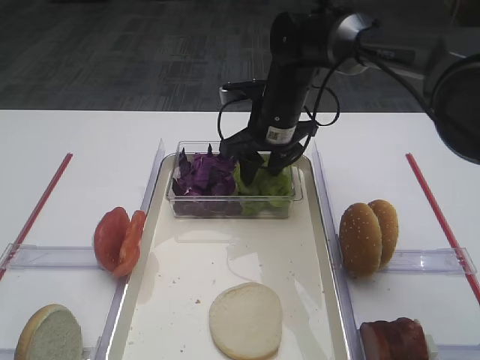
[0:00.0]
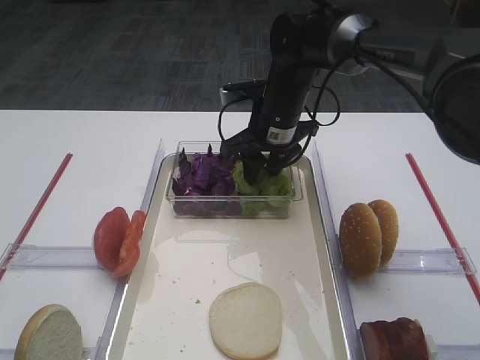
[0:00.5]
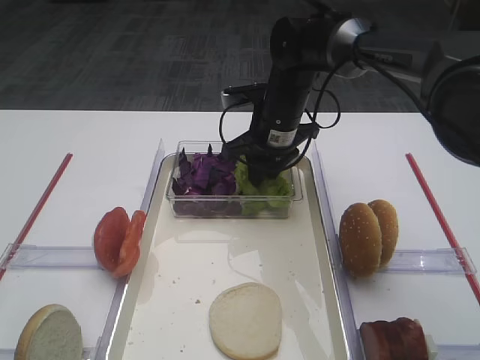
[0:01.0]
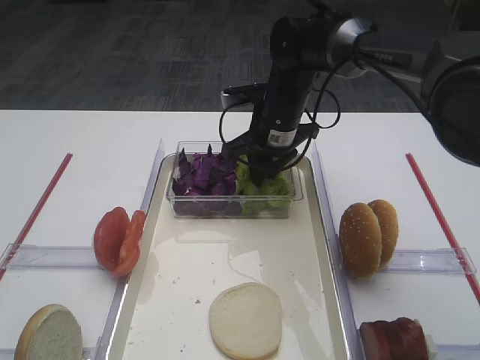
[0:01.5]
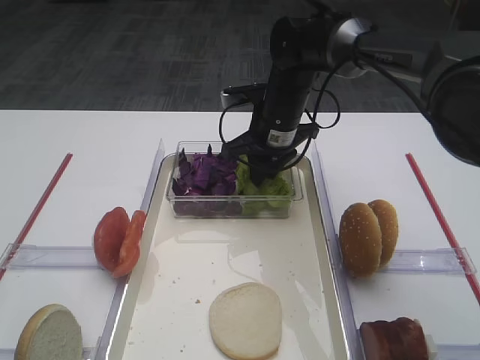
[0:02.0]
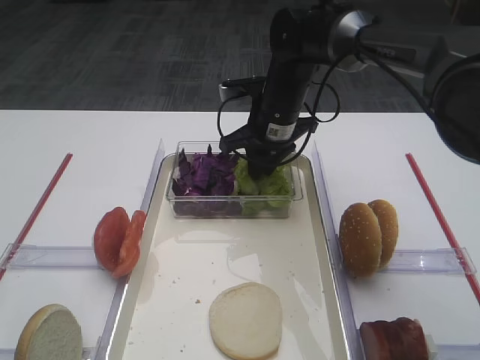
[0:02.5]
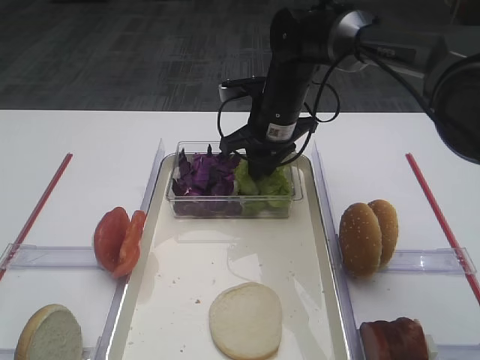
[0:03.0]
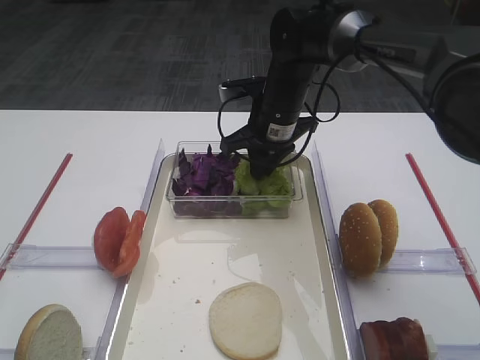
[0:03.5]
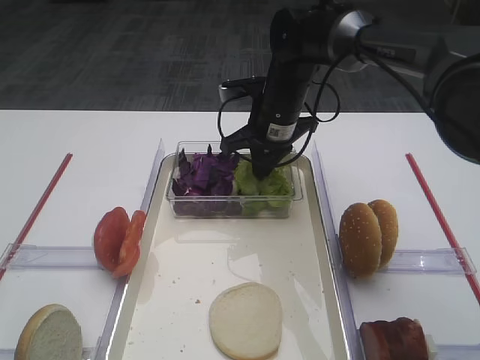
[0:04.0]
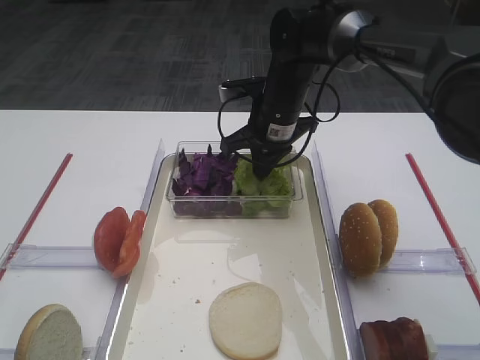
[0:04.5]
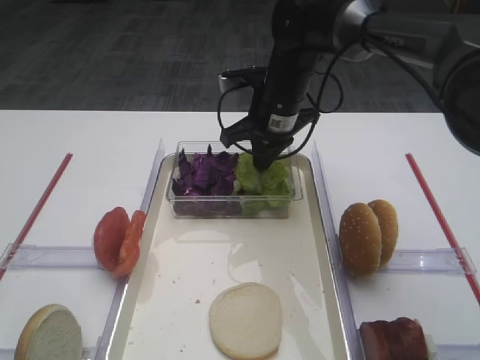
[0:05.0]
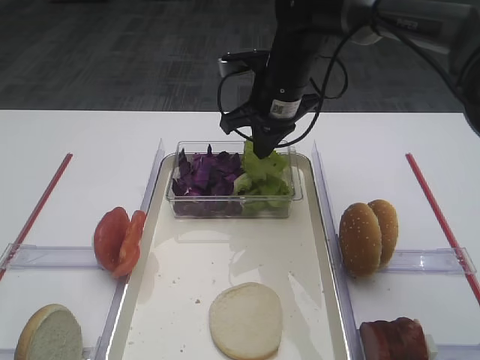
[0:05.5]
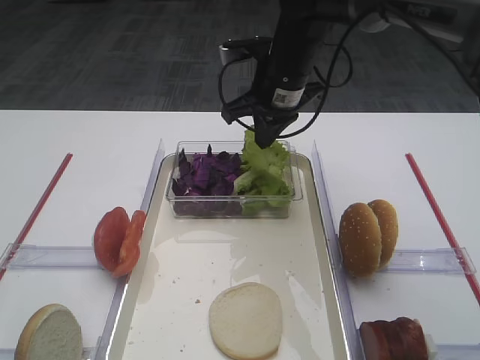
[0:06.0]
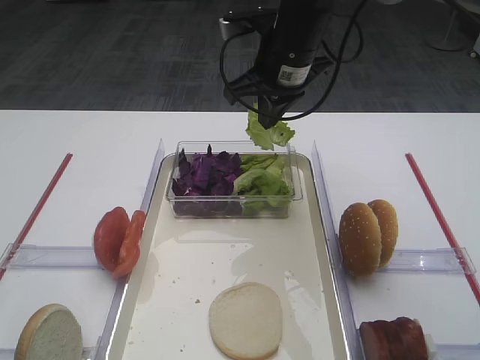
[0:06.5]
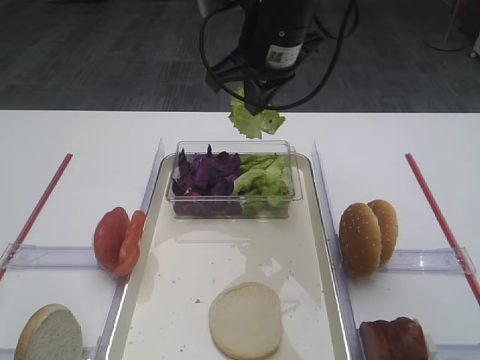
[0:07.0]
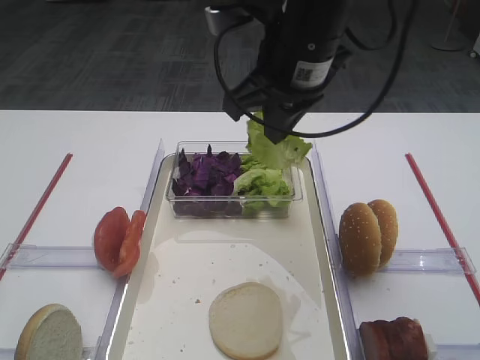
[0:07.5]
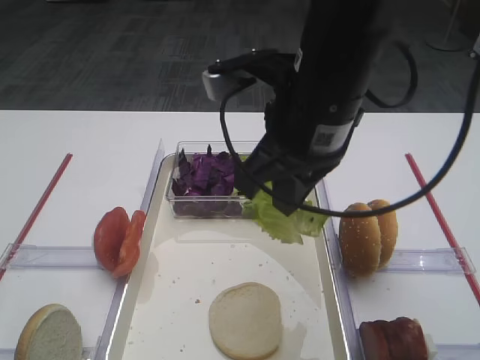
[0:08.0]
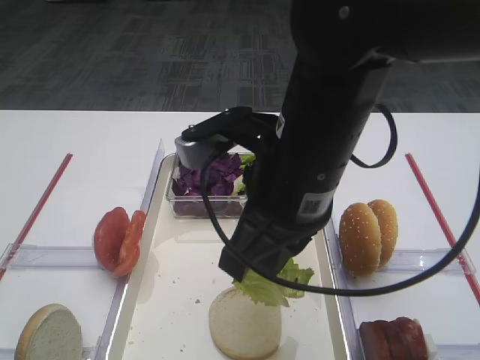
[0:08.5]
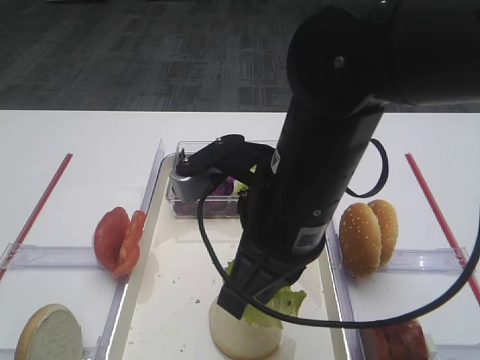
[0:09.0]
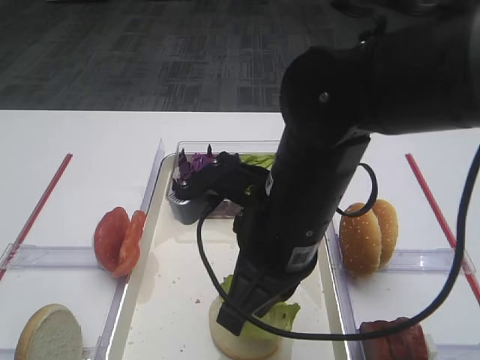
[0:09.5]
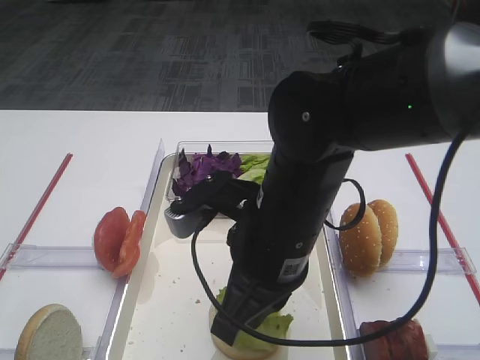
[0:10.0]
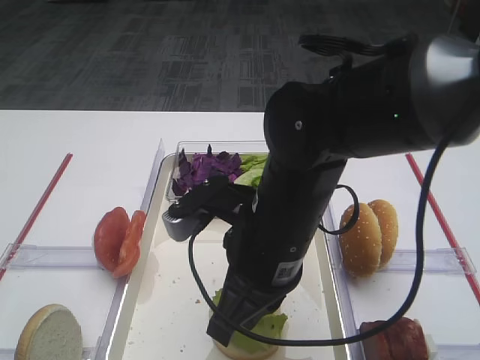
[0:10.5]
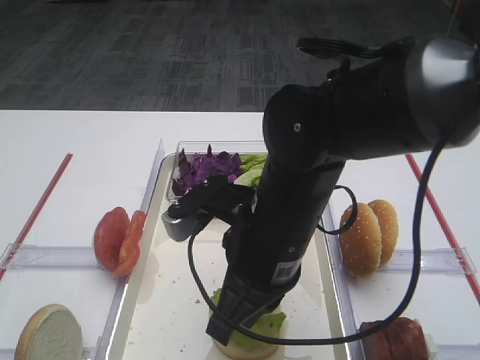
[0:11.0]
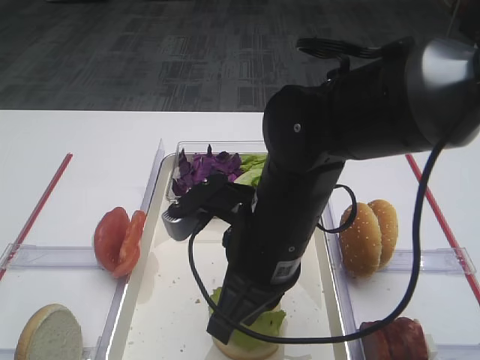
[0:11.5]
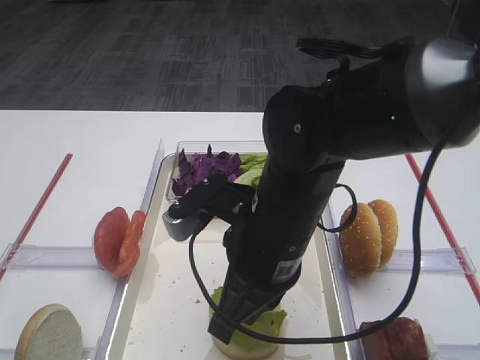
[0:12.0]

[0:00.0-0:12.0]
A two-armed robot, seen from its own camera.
Step, 0:00.0 to 0:05.5: Pick up the lettuce leaf with the right gripper.
0:00.0 to 0:02.0: The right gripper closes up.
0:02.0 to 0:04.0: Both grippers stay put.
0:04.0 to 0:06.0: The right gripper is displaced upward by some 5 cm.
0:06.0 to 0:08.0: The right gripper goes some 15 cm backward.
0:08.0 to 0:10.0: The right gripper heads downward, covering about 10 cm.
0:10.0 to 0:12.0: Neither gripper changes place.

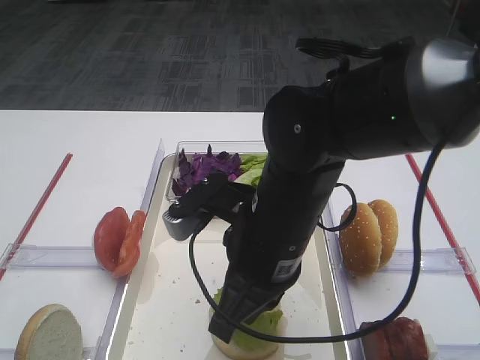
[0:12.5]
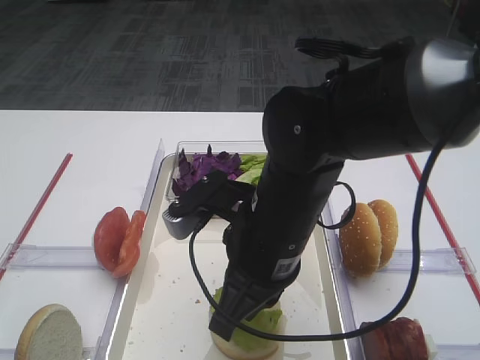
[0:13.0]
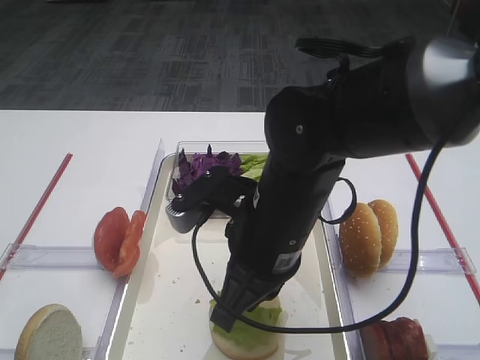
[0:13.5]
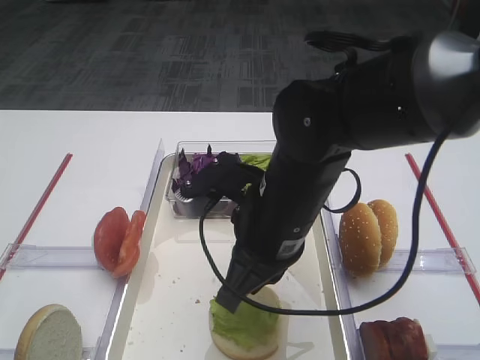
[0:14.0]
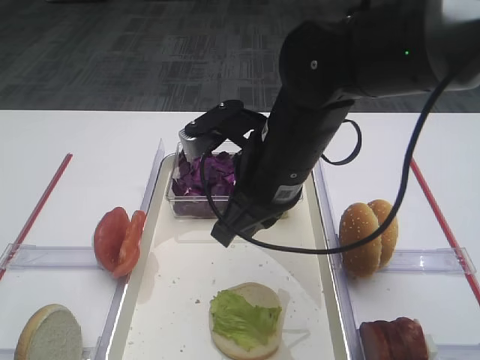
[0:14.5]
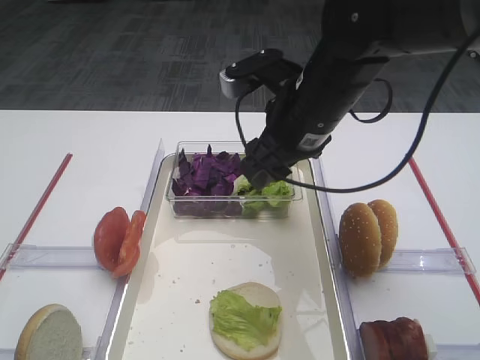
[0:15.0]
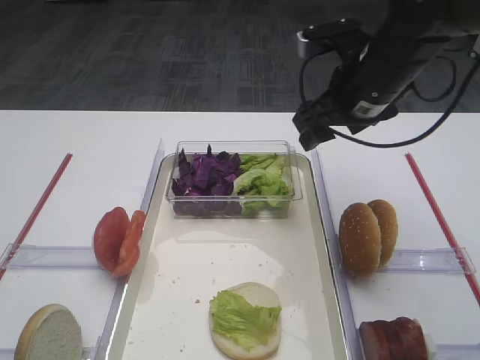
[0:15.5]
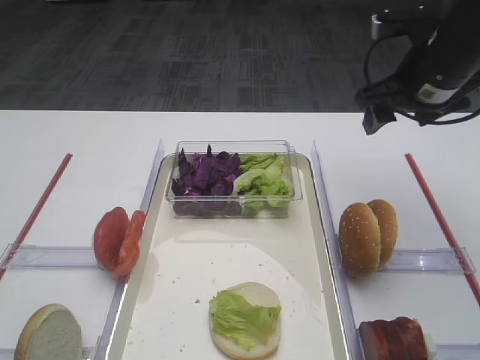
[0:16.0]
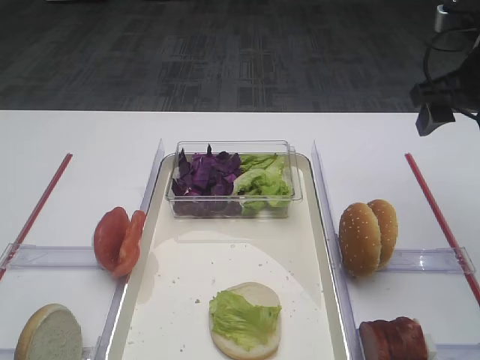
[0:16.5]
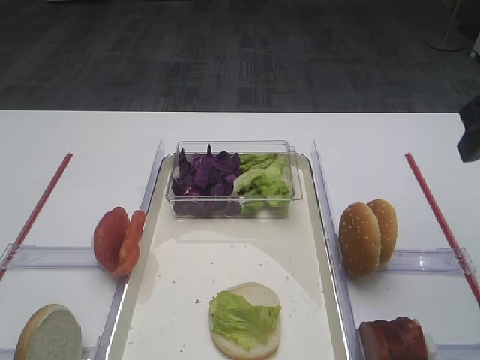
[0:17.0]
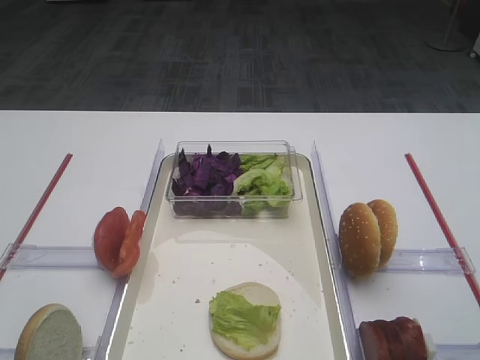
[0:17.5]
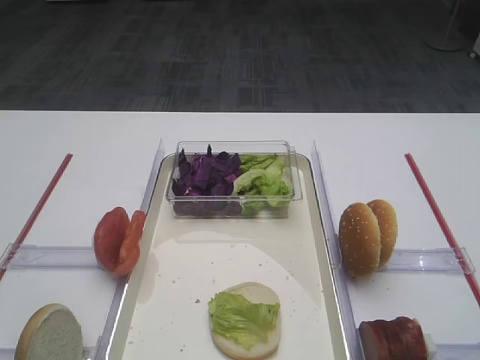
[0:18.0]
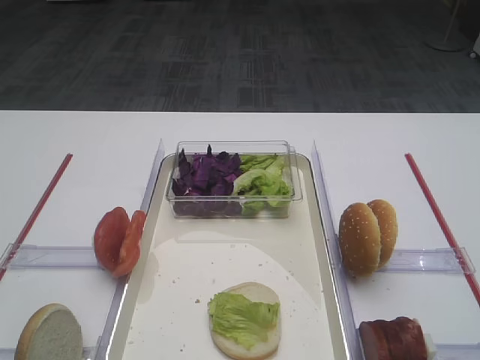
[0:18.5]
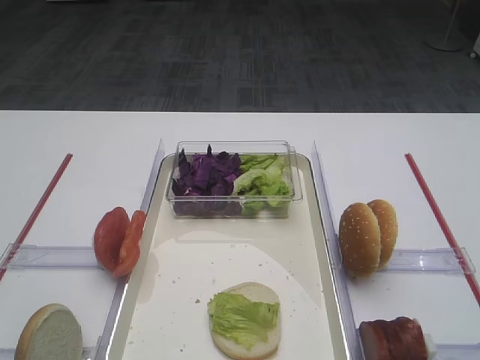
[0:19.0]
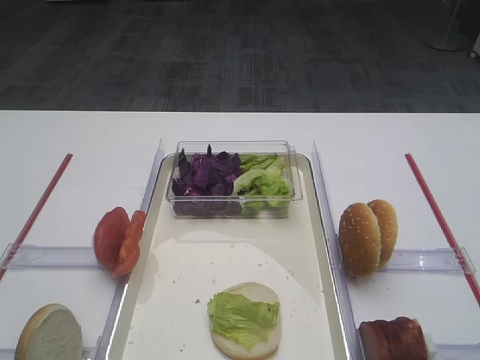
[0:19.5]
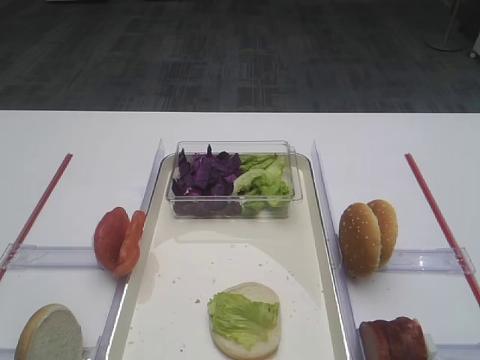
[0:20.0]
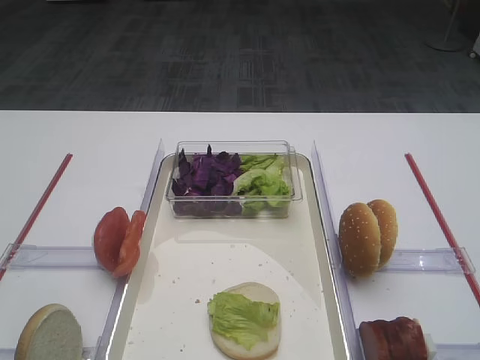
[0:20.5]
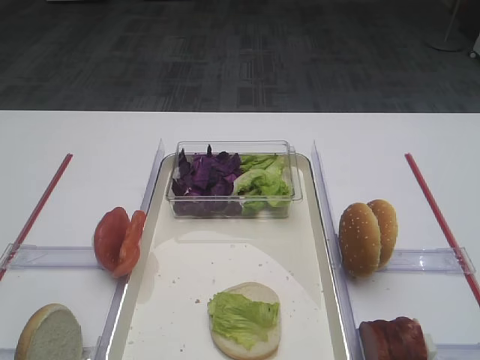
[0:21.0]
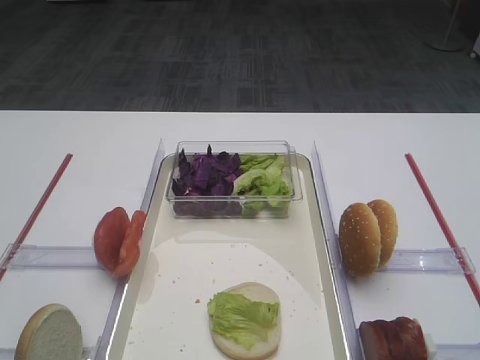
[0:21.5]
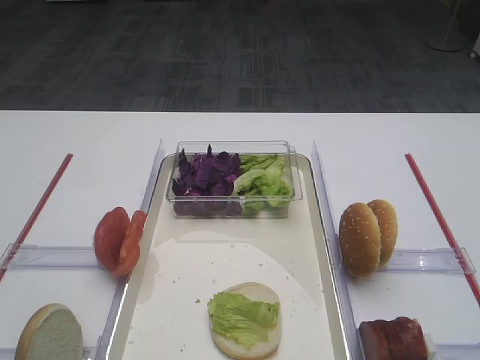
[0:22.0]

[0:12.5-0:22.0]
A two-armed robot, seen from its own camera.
Step, 0:12.5 to 0:16.5: Place the lettuce leaf on the bread slice with the right gripper.
0:12.5 to 0:14.5: The right gripper goes some 5 cm forward.
0:14.5 to 0:16.5: The right gripper goes some 25 cm to the right, and opens.
0:16.5 to 0:18.0: The right gripper moves backward, approximately 30 cm.

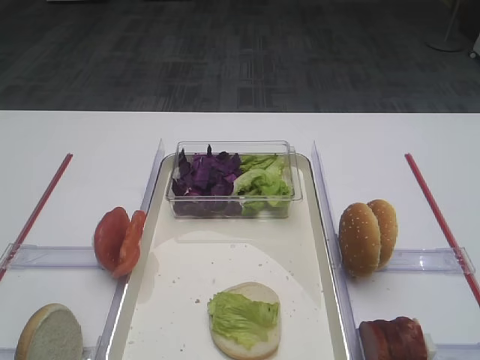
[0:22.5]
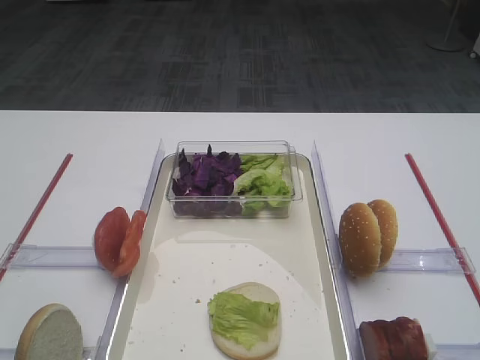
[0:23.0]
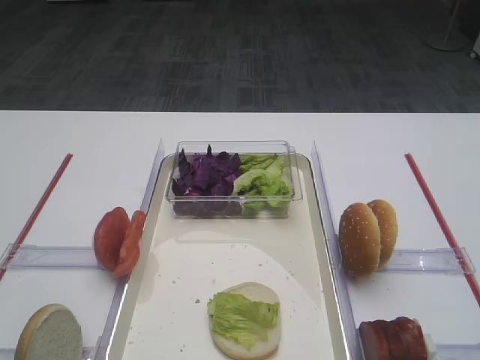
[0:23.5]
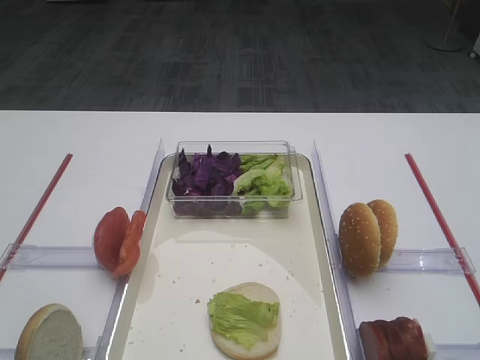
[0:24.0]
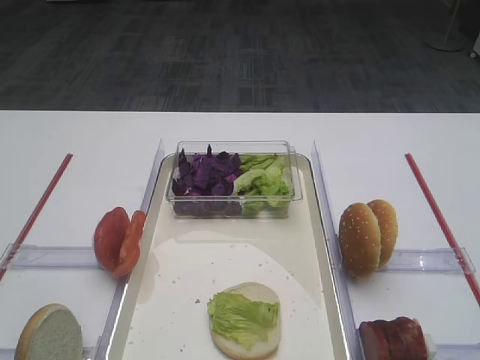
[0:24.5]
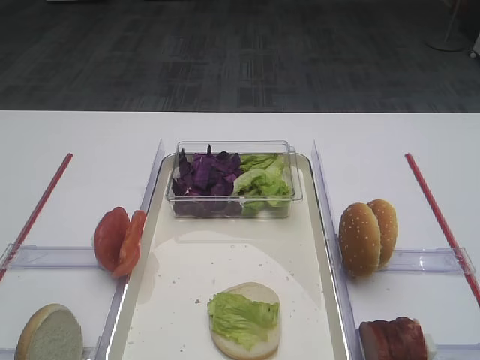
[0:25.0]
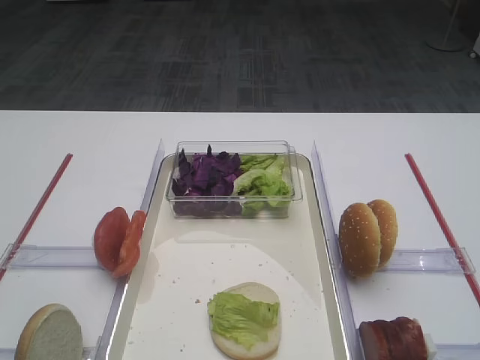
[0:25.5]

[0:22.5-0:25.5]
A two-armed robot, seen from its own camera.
0:22.5 to 0:25.5: The two grippers keep their place.

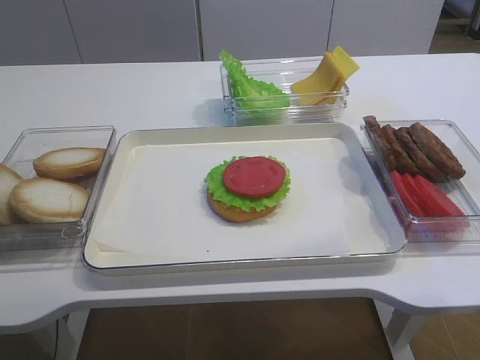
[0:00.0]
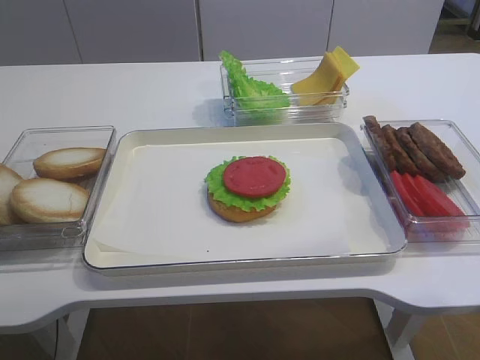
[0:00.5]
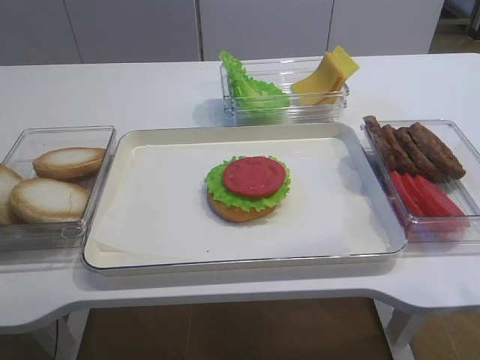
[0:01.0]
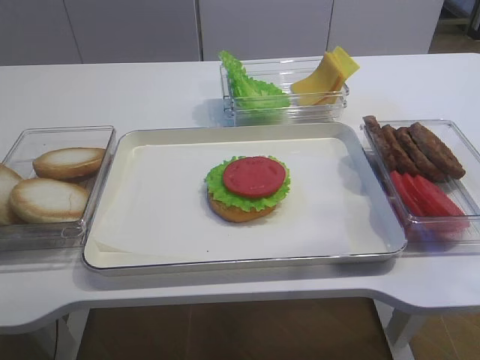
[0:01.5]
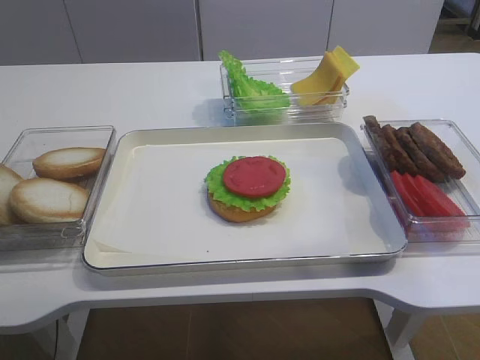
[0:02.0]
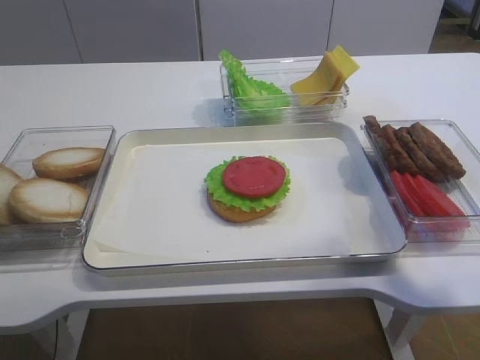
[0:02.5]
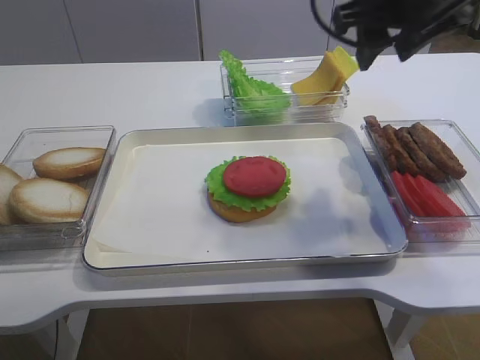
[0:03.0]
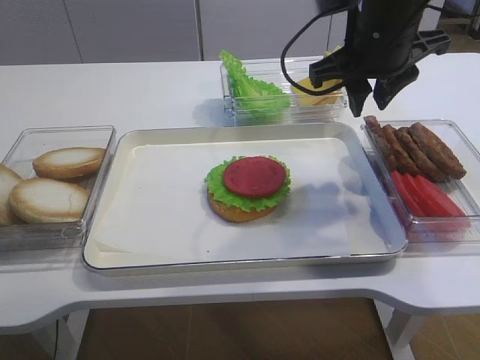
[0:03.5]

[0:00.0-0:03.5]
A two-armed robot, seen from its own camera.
0:02.0 to 0:03.5: The right gripper travels forward, to the left and downward by roughly 25 cm, and closes its fingers.
